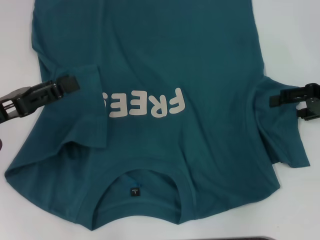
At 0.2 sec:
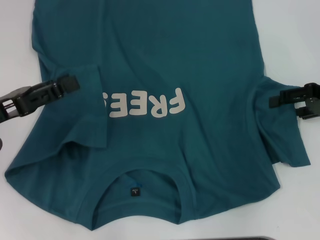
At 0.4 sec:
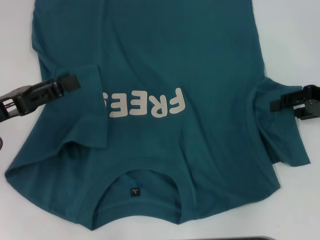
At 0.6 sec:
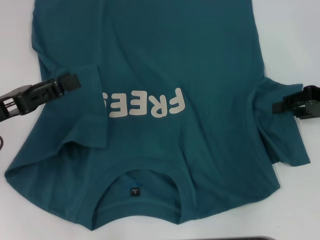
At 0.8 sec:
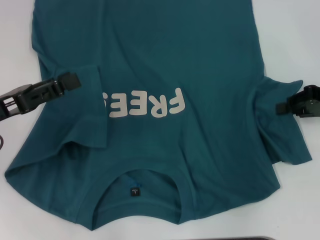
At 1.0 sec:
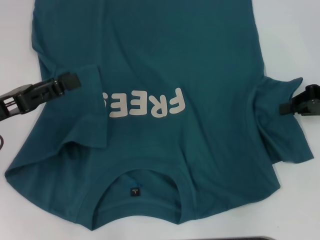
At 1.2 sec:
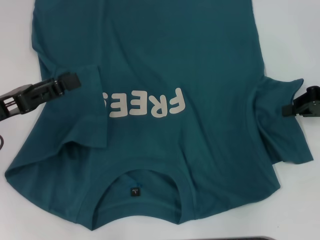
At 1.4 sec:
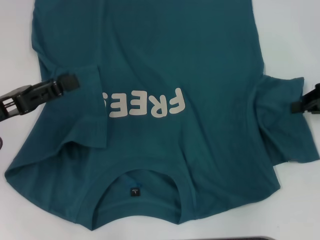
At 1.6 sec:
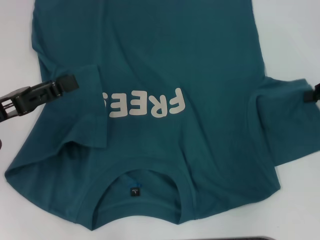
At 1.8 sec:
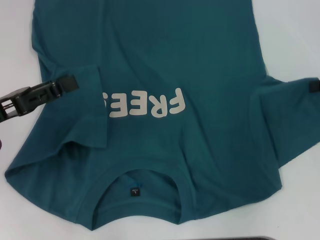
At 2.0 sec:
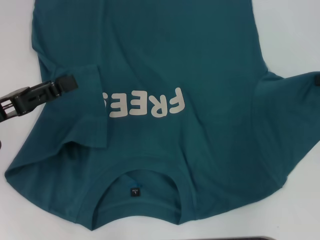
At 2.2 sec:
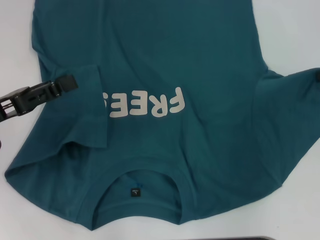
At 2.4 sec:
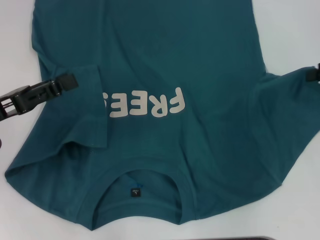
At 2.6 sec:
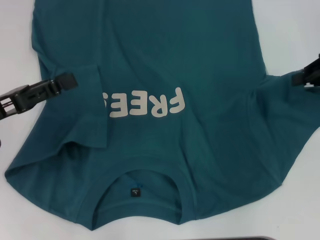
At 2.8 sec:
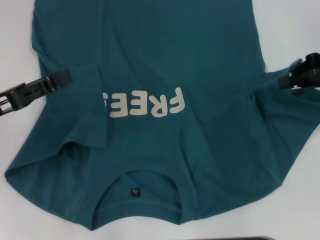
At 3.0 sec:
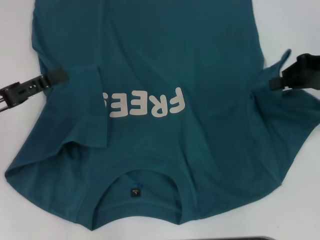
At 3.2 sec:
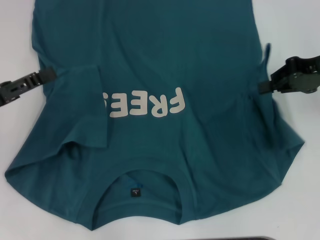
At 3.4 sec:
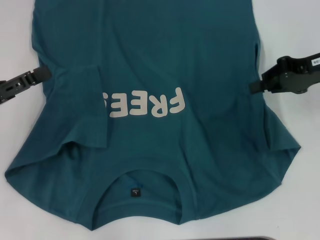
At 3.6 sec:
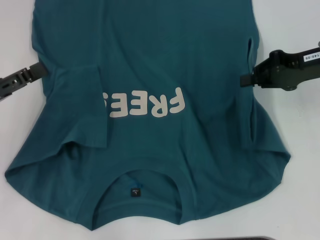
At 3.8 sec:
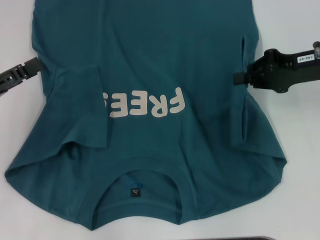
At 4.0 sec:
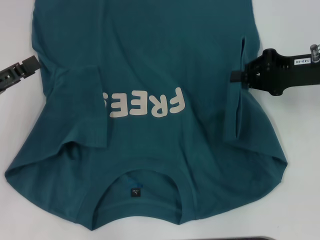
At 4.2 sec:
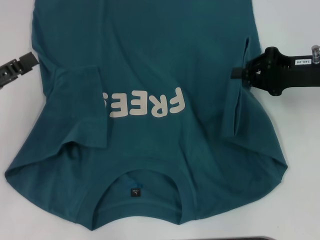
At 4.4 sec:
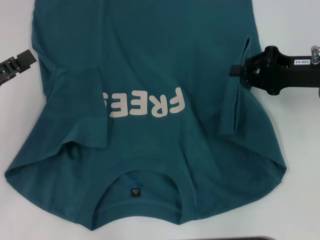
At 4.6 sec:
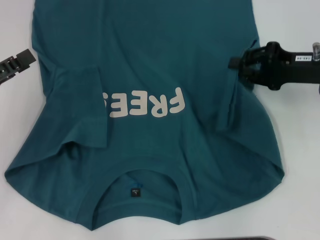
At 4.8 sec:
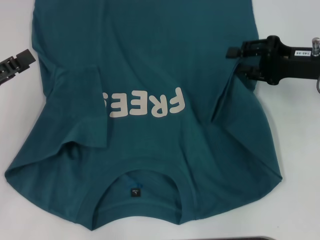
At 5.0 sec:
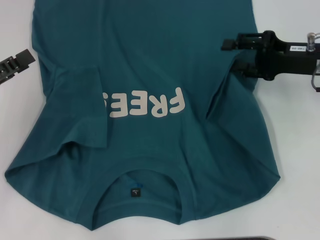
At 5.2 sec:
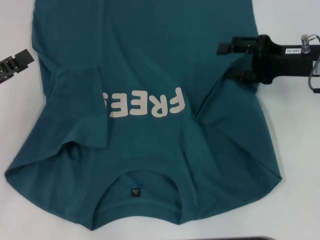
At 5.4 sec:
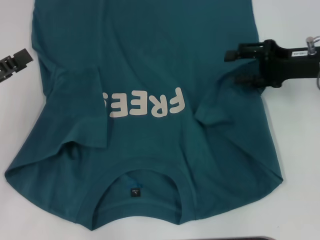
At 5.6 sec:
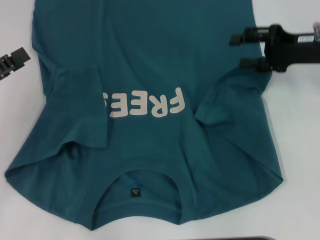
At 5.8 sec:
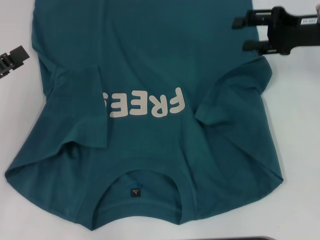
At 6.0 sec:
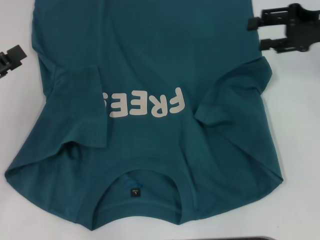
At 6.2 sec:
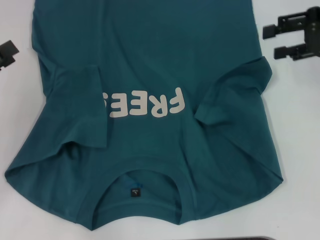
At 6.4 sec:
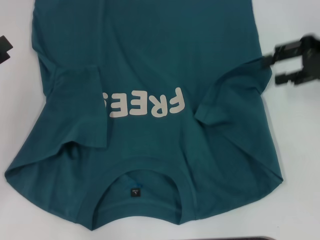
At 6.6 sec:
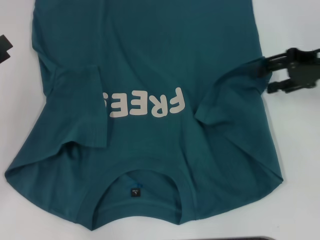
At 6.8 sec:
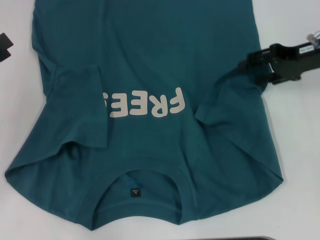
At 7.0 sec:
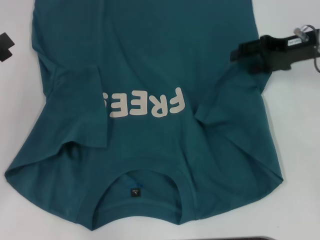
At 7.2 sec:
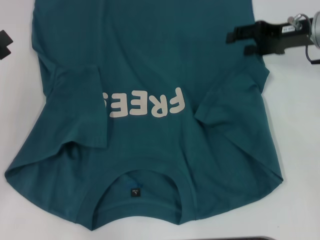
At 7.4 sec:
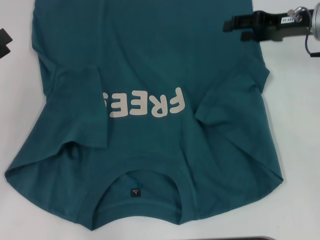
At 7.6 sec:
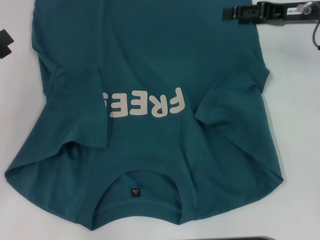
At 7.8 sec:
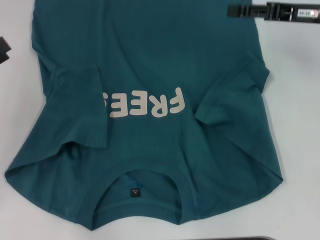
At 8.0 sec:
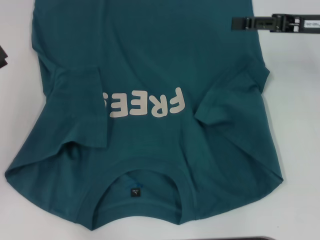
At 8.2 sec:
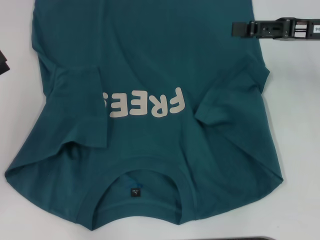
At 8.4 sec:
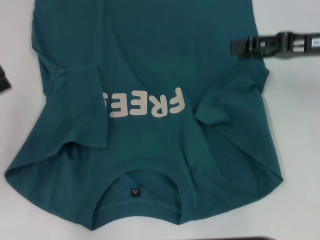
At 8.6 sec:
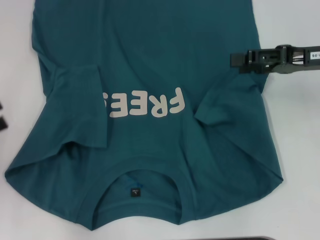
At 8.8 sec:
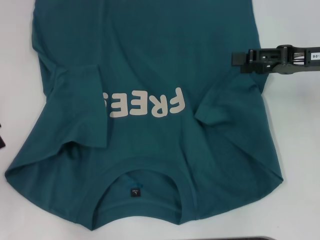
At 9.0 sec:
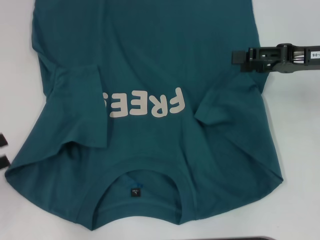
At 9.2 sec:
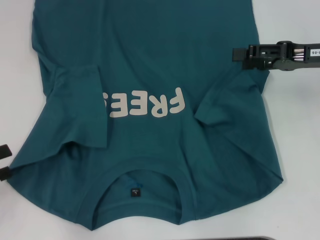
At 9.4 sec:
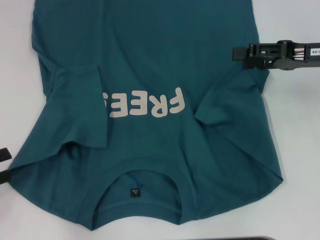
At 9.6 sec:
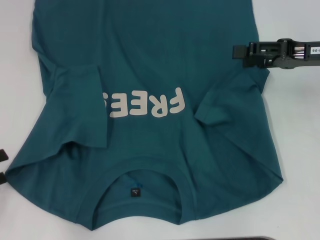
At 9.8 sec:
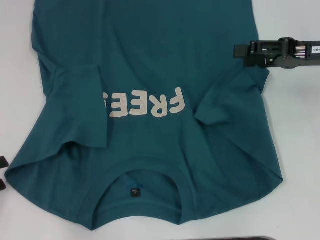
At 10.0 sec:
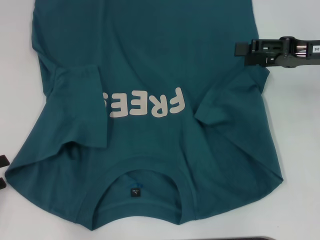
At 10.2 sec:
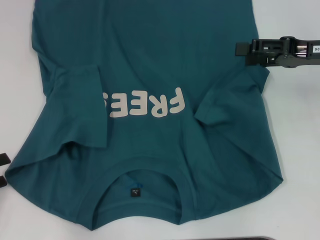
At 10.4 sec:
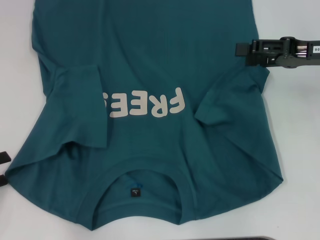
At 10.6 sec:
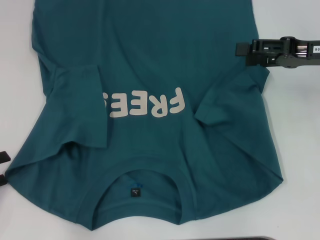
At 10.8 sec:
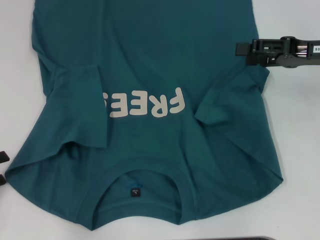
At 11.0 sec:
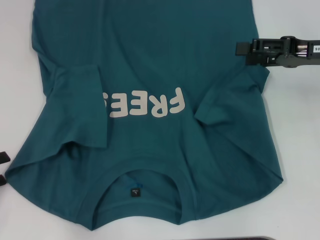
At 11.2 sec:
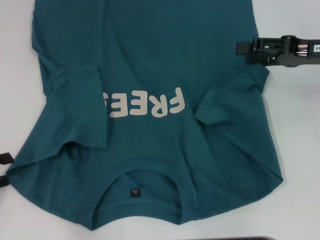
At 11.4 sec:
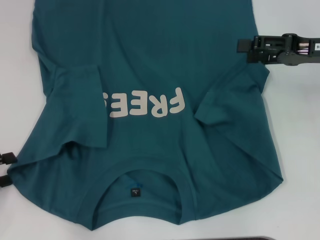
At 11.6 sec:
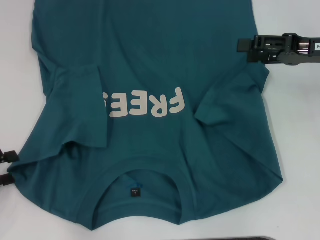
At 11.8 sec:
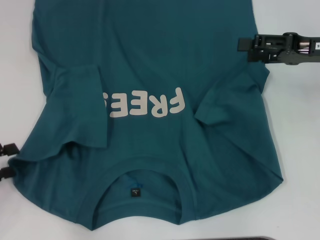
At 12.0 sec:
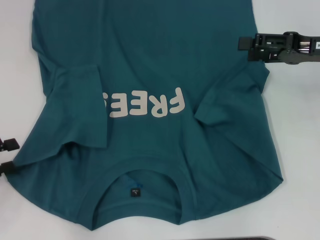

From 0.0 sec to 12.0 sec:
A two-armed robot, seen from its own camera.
Step, from 0.0 sec to 7.8 sec: Fold the bottom right sleeve to the right.
From 0.0 sec to 1.6 sec: The right gripper closes.
From 1.6 sec to 3.0 sec: The right gripper travels to the left by approximately 5 cm.
From 3.0 sec to 4.4 sec: The right gripper goes roughly 5 cm downward.
From 4.4 sec to 6.0 sec: The right gripper heads upward, covering roughly 5 cm, and opens its fingers.
From 7.6 sec to 9.0 sec: Both grippers travel together backward, some 5 cm.
From 9.0 sec to 12.0 sec: The grippers make only small movements.

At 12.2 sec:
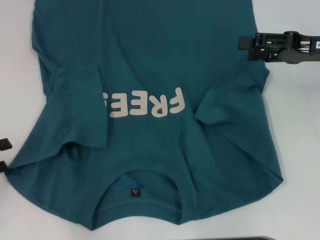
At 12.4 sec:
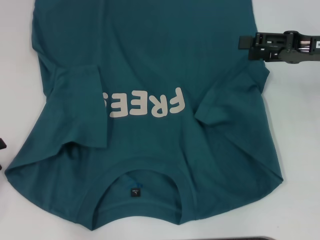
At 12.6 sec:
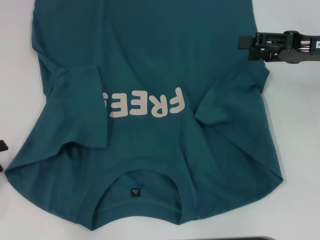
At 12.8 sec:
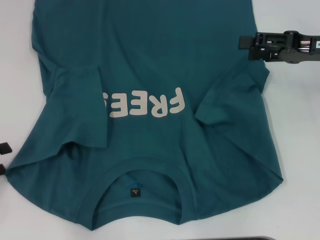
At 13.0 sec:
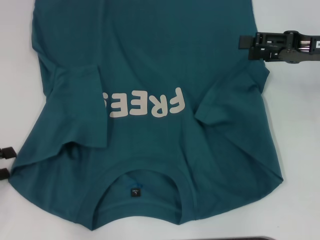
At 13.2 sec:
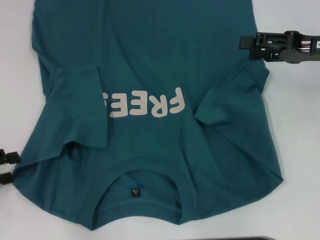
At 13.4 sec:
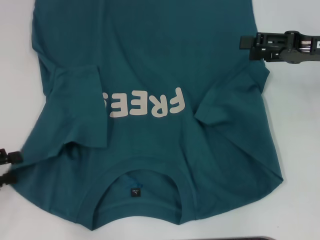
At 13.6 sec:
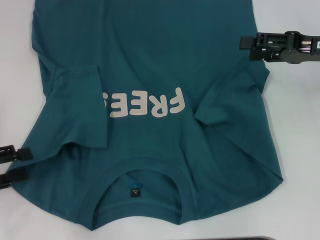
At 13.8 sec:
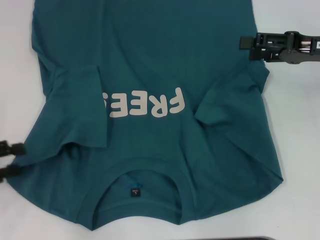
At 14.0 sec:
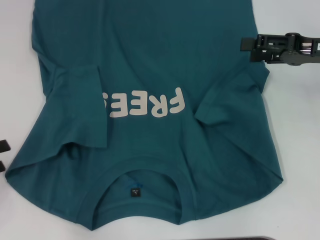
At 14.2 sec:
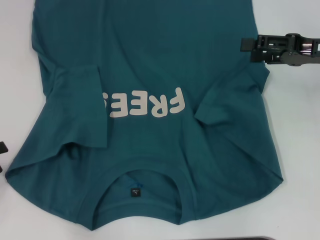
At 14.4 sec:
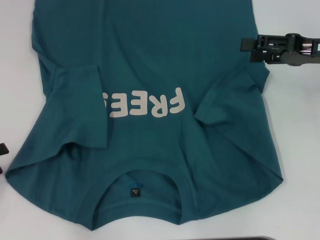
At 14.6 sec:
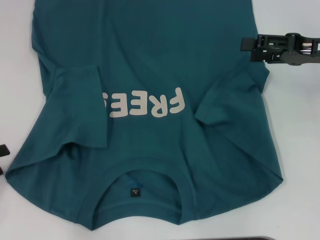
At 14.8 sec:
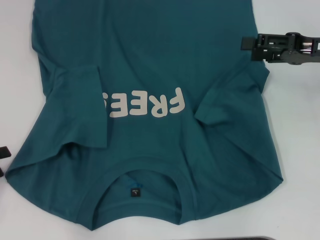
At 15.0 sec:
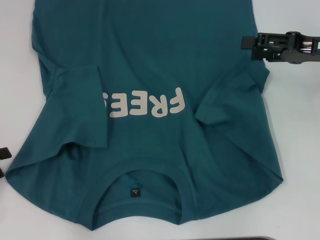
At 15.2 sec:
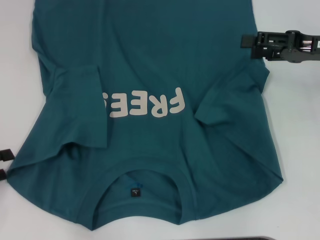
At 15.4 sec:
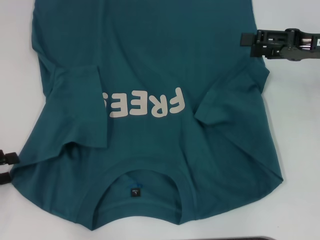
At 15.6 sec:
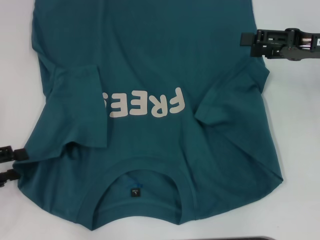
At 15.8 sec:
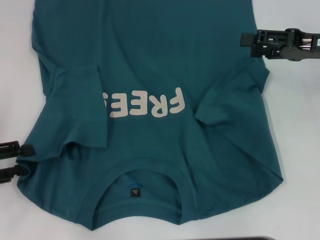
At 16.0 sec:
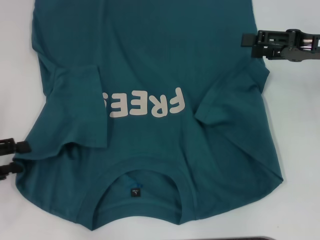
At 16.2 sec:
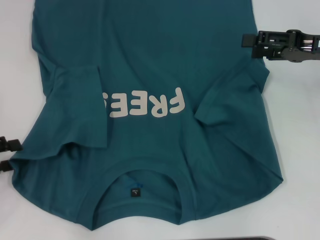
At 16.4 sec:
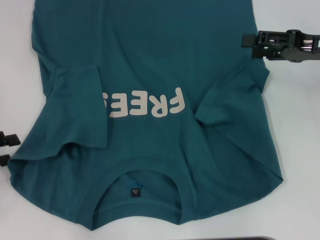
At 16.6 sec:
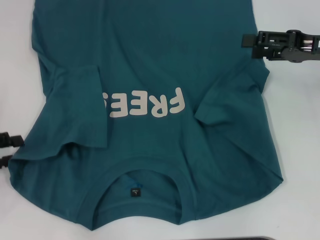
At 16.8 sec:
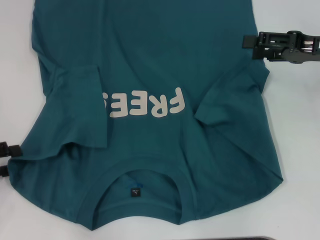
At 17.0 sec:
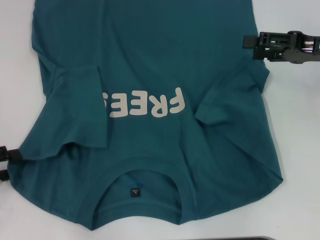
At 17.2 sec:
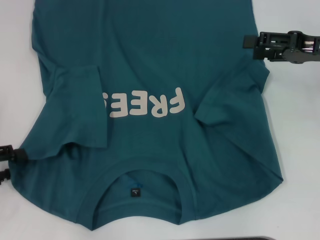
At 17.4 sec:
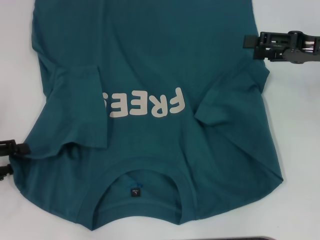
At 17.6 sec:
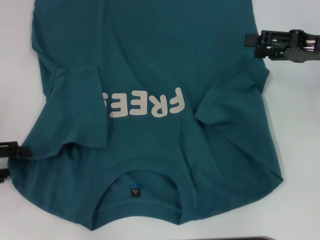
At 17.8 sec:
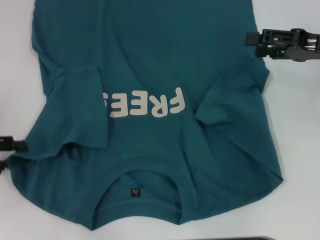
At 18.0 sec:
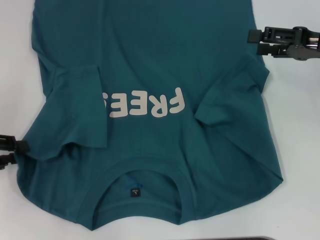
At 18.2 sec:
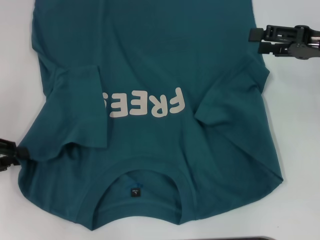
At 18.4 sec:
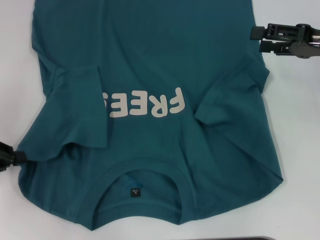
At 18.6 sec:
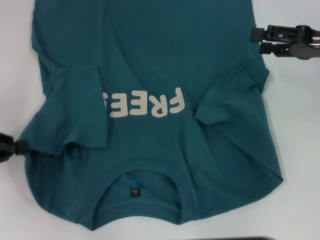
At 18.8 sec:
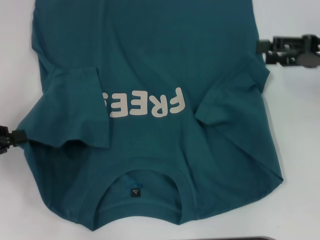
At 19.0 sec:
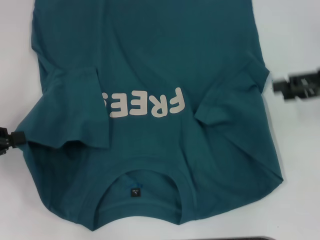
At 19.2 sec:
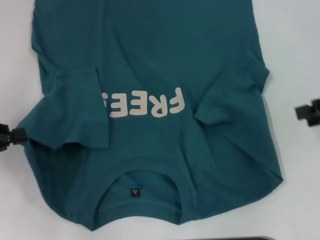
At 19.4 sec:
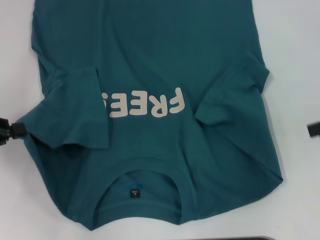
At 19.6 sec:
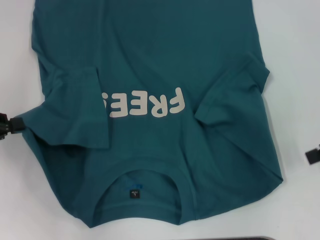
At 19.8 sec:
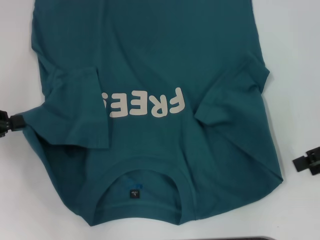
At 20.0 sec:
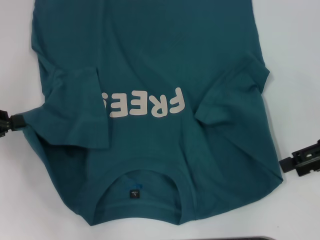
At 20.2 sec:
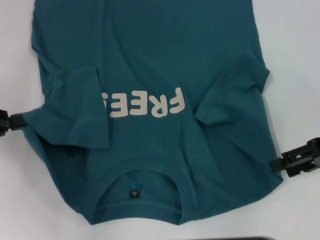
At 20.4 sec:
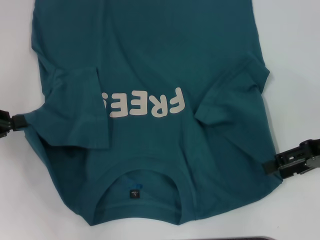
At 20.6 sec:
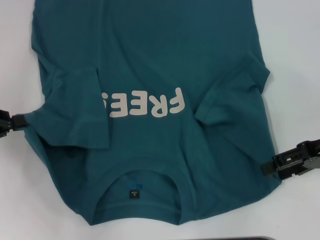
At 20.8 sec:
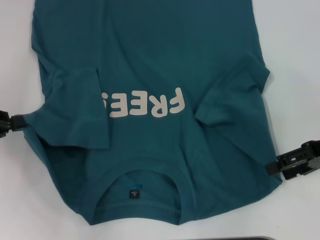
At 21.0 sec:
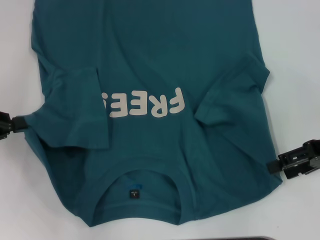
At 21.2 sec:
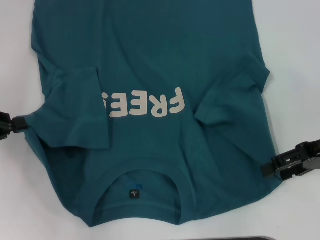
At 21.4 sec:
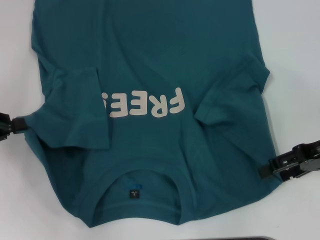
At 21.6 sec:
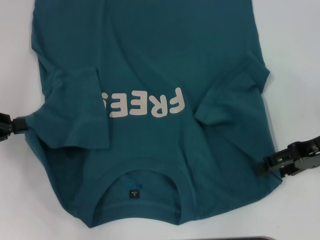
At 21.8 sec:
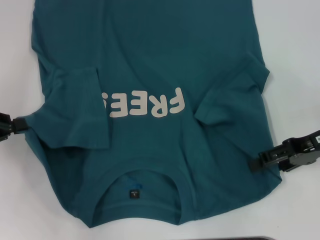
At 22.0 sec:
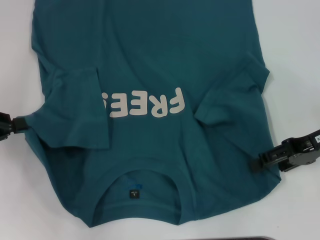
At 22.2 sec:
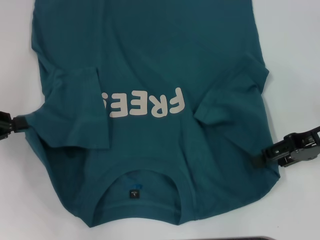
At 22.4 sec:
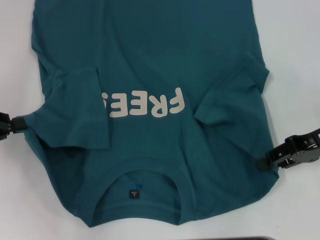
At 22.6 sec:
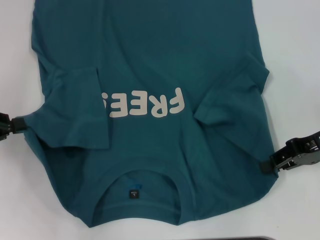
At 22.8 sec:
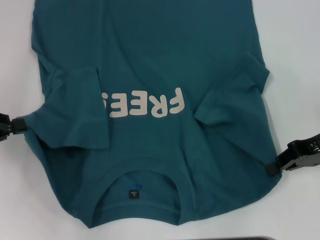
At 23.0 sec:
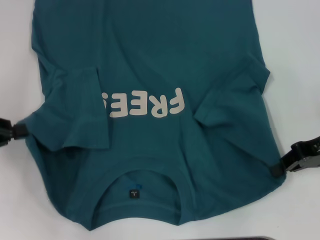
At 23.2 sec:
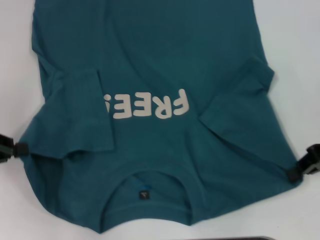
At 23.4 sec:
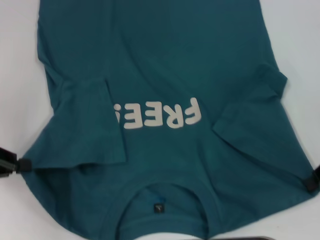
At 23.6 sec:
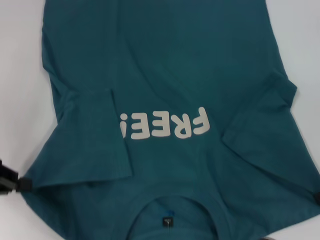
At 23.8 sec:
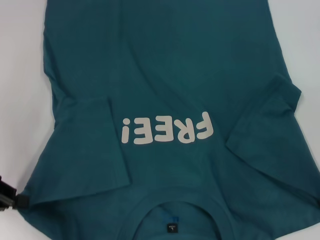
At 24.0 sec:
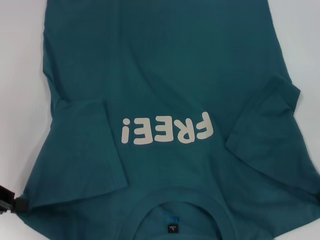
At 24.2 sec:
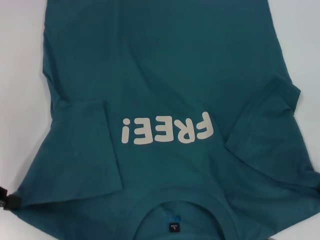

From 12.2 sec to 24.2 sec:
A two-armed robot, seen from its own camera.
Step, from 12.2 sec to 19.2 sec: Grab the bottom left corner with your left hand.
Step, from 19.4 sec to 23.0 sec: Grab the bottom right corner with your right hand.
From 13.8 sec to 18.2 sec: The grippers make only small movements.
From 18.2 sec to 19.8 sec: The left gripper closes its fingers. The right gripper is displaced backward by approximately 5 cm.
From 19.8 sec to 21.2 sec: There are only small adjustments of the grippers.
From 21.2 sec to 22.6 sec: The right gripper closes up.
From 22.6 sec to 24.2 sec: The right gripper closes.
